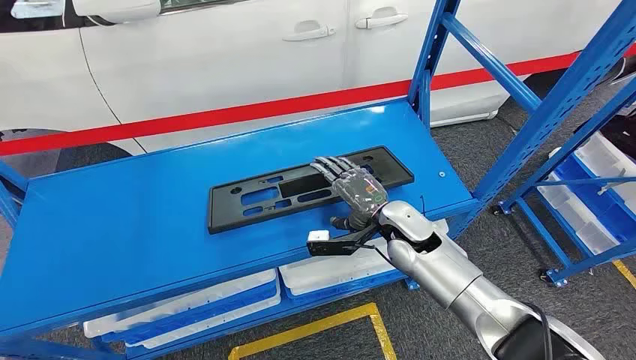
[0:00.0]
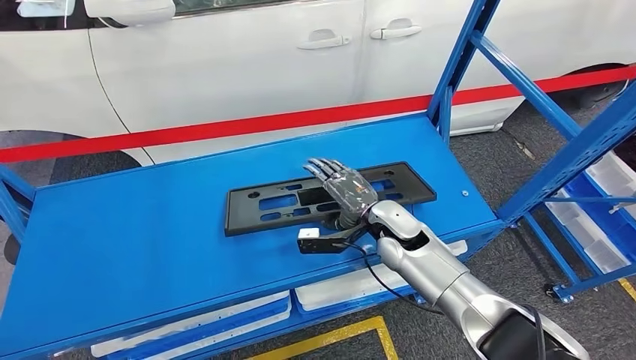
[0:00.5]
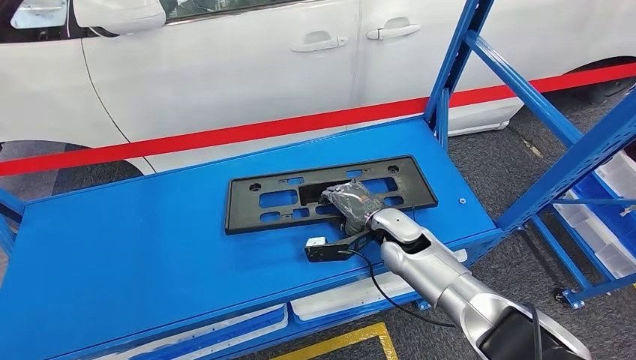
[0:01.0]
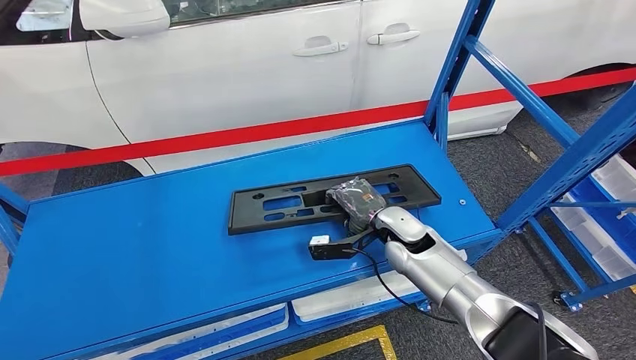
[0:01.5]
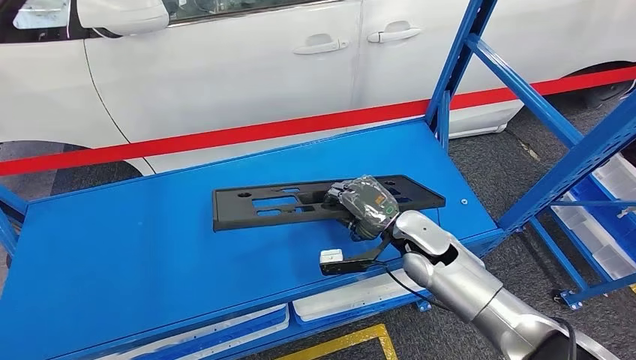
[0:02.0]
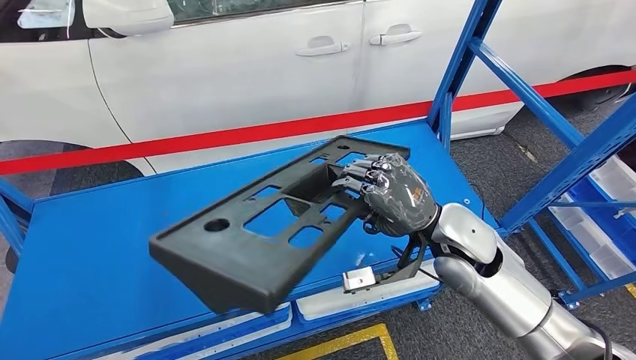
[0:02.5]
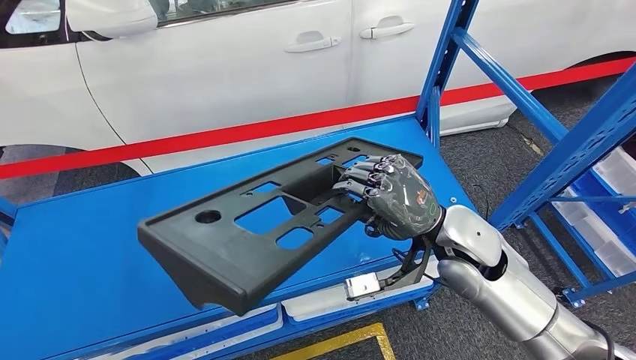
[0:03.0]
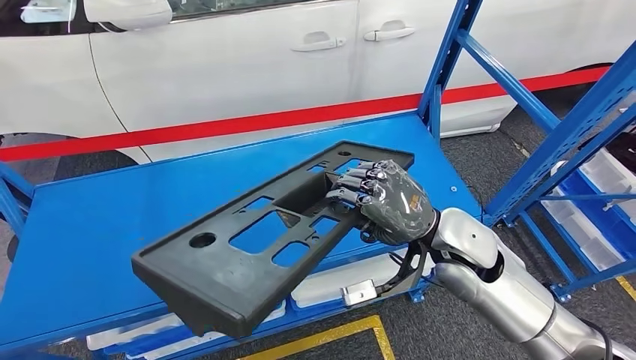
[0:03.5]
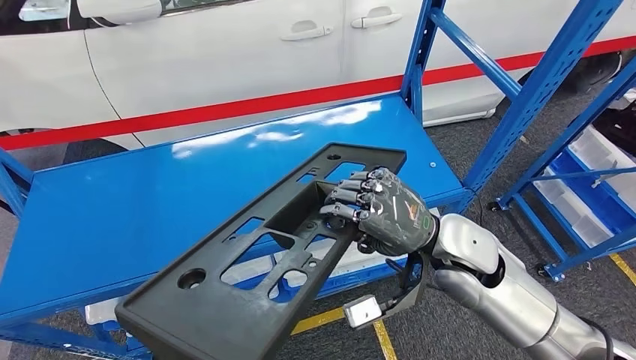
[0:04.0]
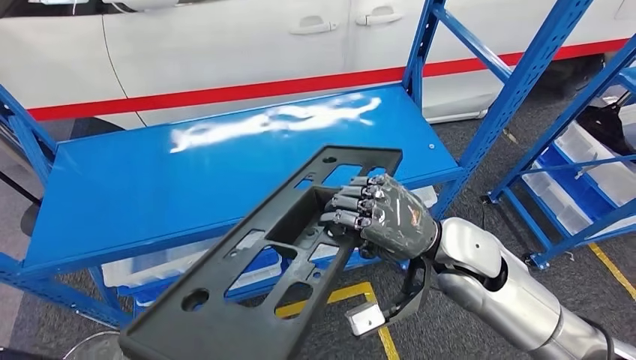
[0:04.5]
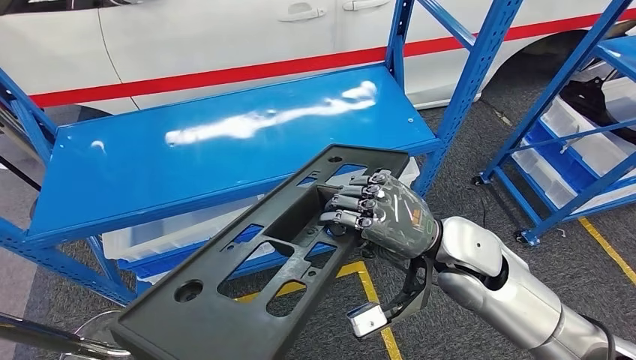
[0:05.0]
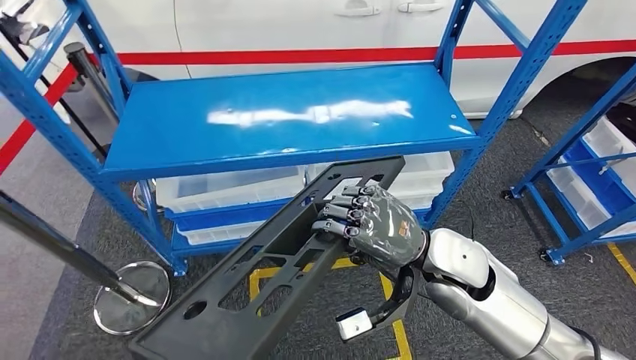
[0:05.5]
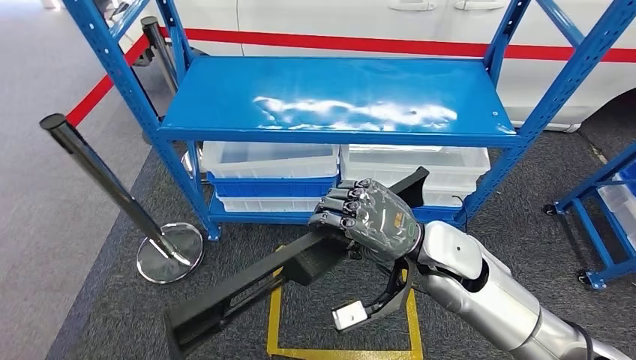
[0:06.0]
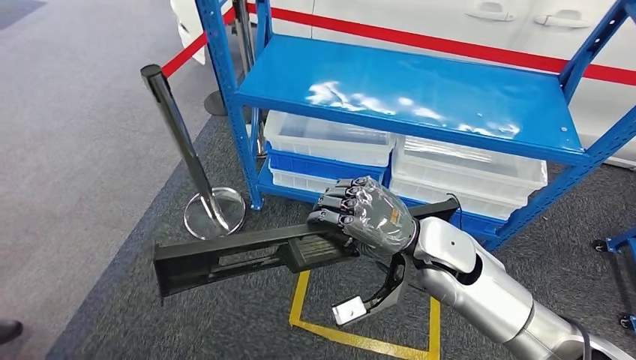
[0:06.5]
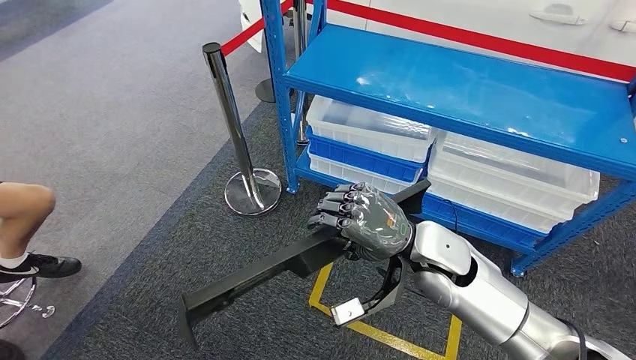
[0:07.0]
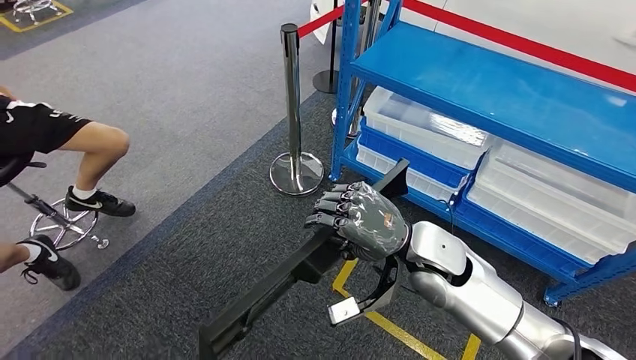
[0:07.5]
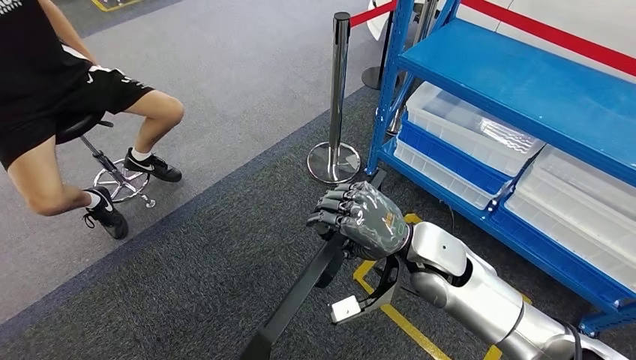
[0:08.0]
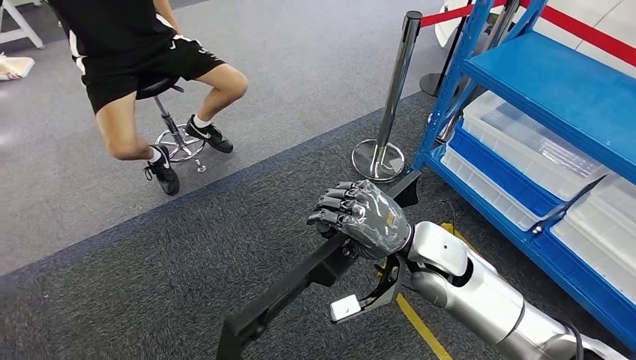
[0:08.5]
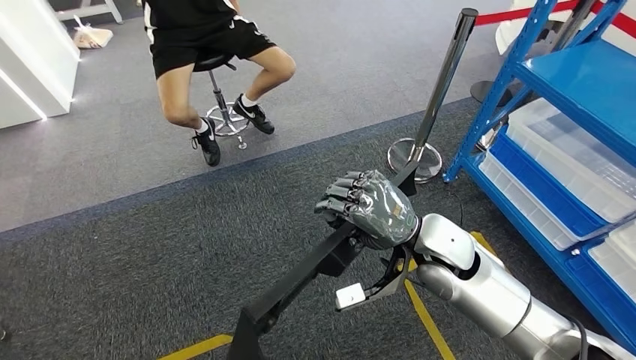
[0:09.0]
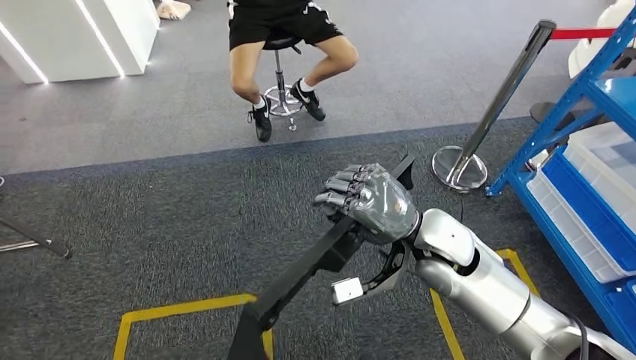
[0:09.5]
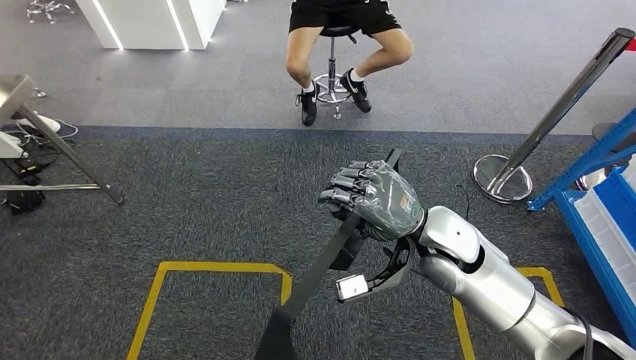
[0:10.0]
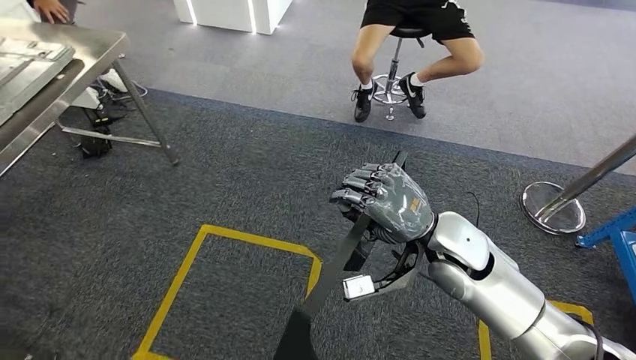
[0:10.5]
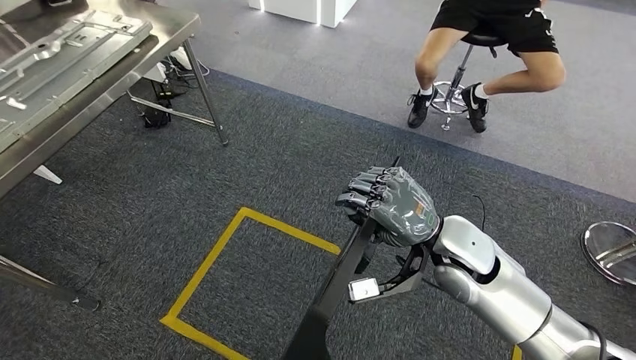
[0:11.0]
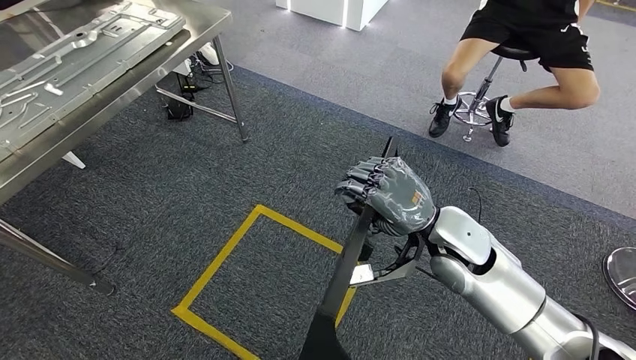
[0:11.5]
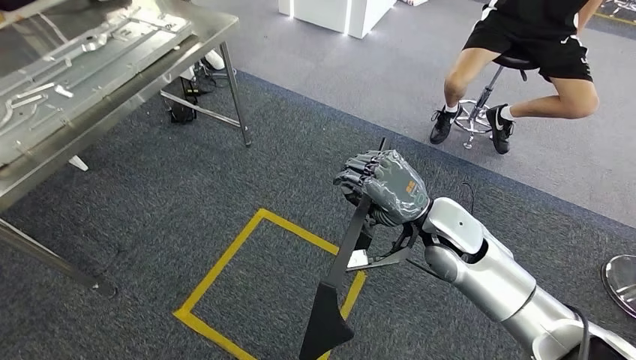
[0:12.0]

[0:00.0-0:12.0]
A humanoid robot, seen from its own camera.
Step, 0:00.0 to 0:03.5: Pick up the large material from the shelf.

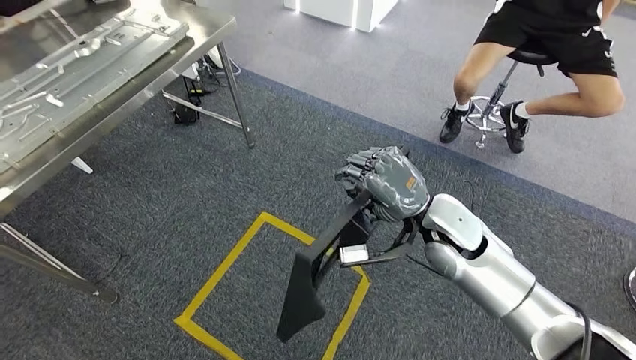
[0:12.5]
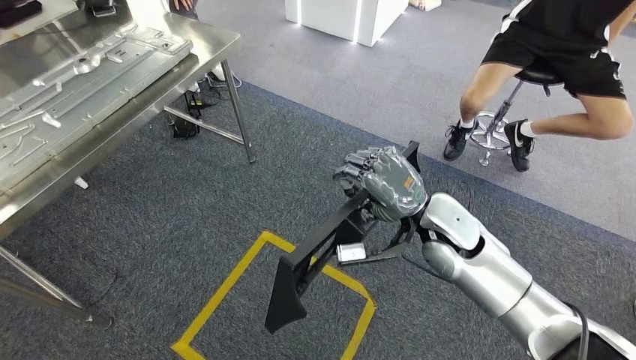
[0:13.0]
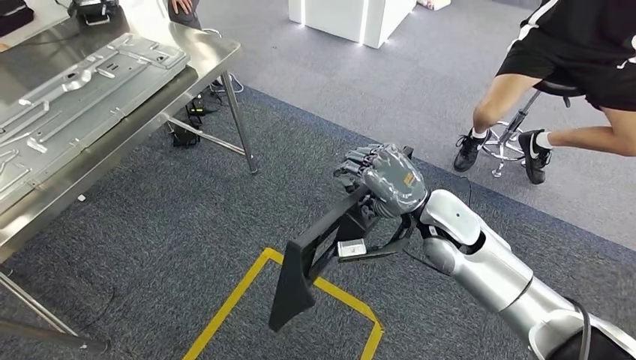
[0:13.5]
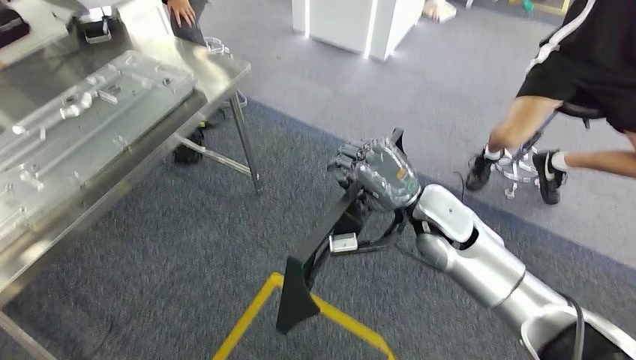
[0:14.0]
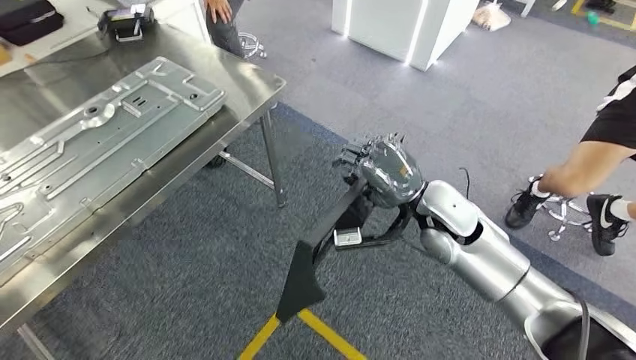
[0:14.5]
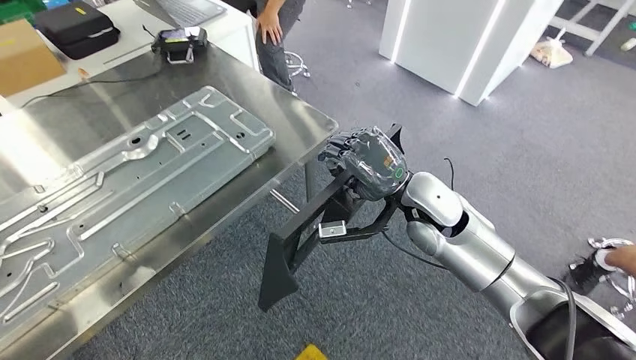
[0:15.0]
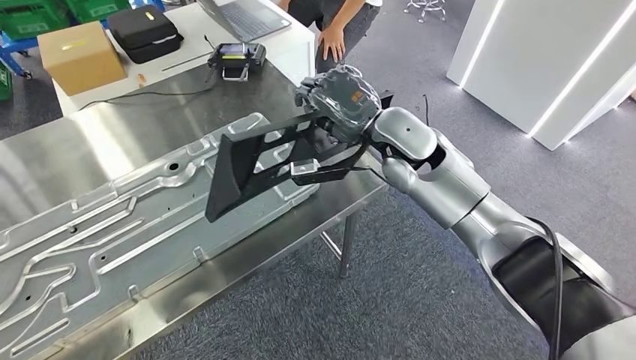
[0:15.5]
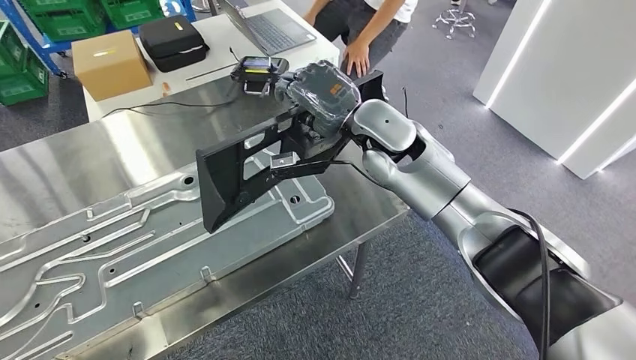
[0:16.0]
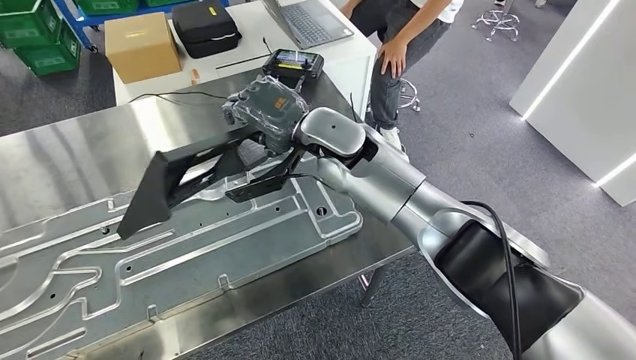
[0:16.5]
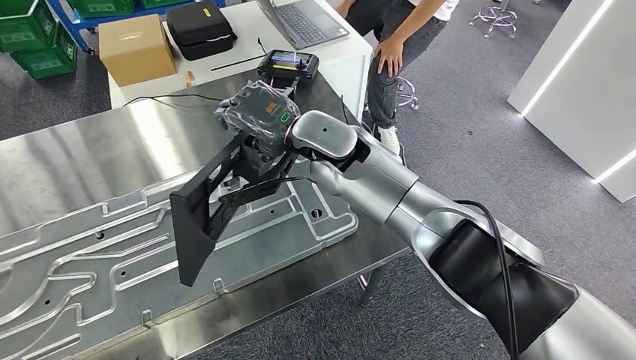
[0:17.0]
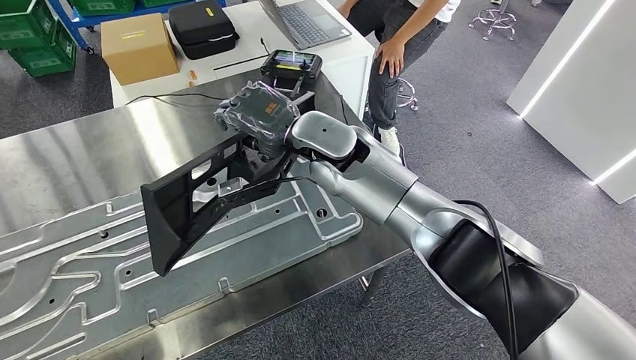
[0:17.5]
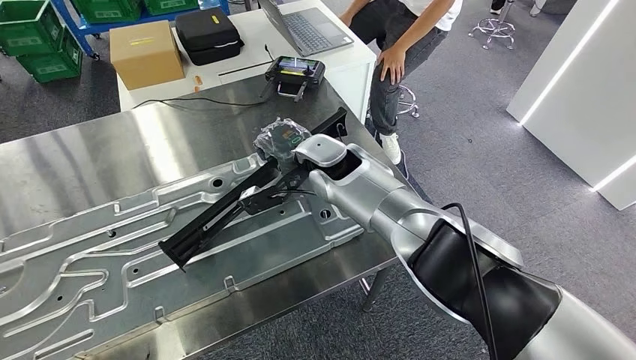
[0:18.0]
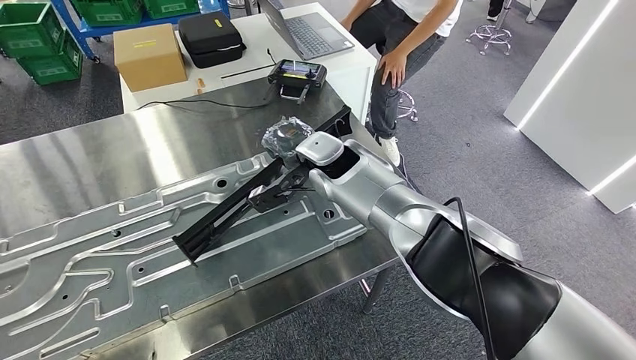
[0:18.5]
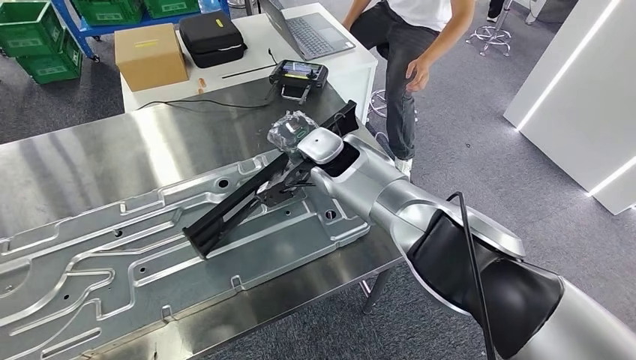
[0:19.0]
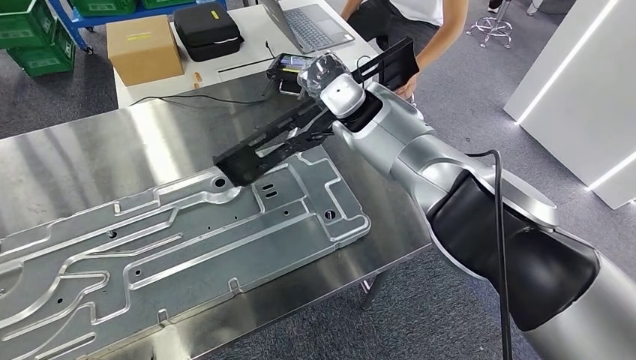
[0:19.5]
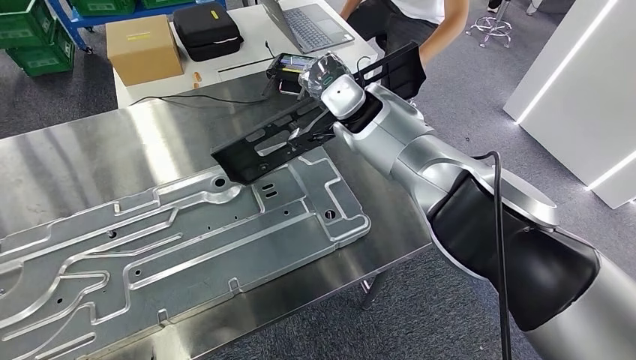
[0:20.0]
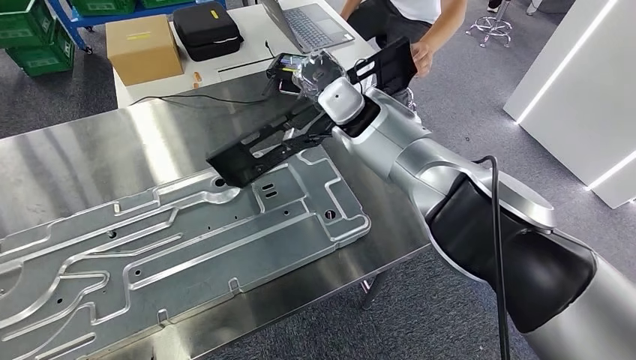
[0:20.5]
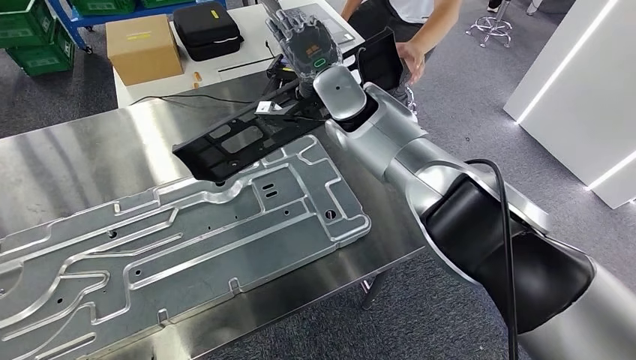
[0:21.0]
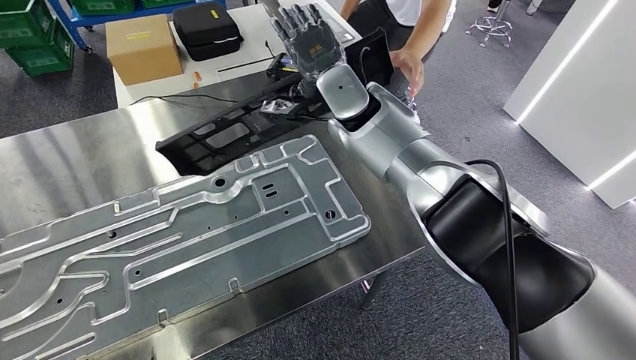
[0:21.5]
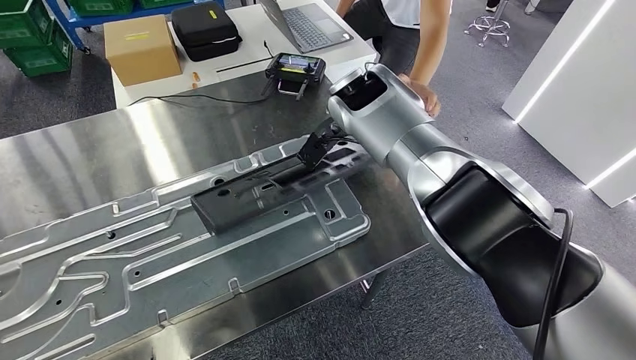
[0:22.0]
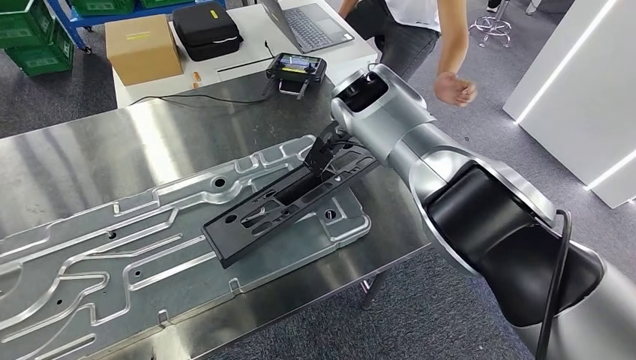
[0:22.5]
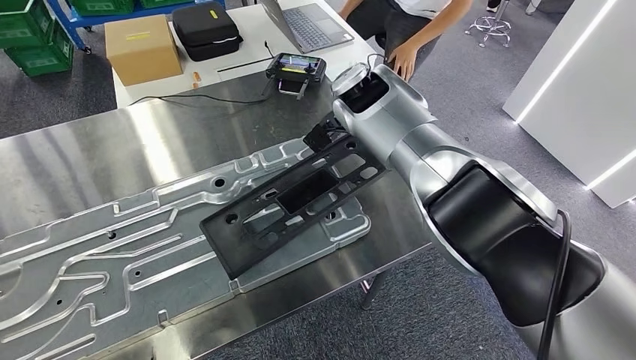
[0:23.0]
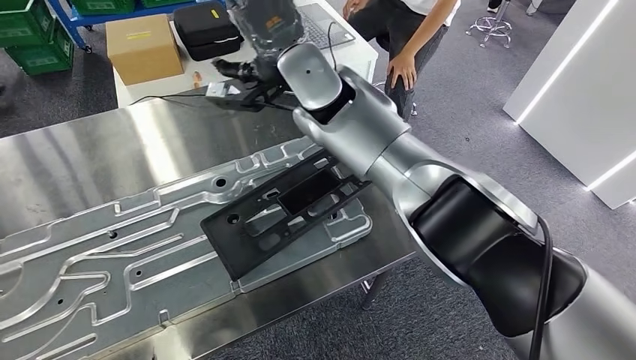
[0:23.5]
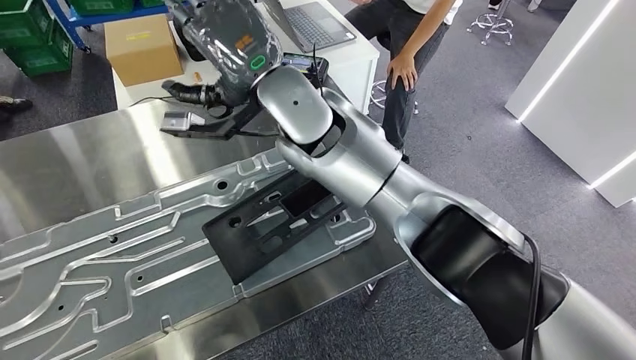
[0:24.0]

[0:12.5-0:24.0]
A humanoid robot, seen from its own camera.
Step, 0:12.5 to 0:14.5: Move the large material to the workbench.
Step, 0:16.0 to 0:22.5: Insert the large material into the corresponding slot on the workbench.
